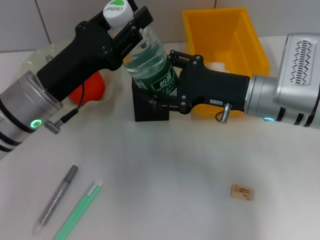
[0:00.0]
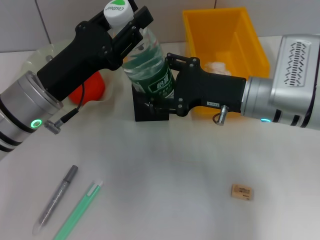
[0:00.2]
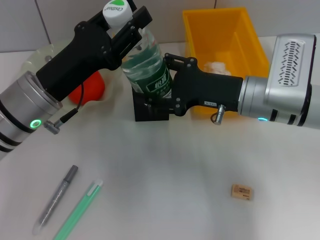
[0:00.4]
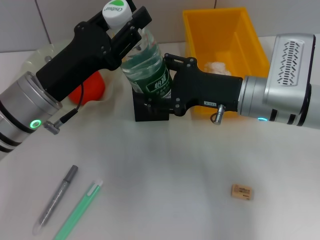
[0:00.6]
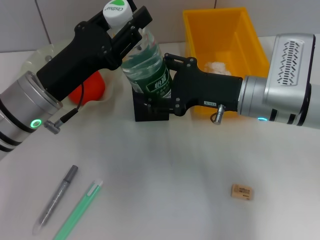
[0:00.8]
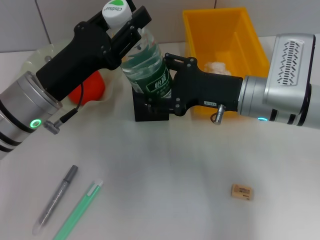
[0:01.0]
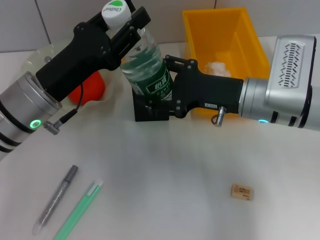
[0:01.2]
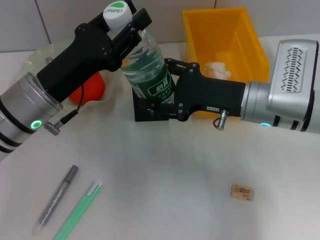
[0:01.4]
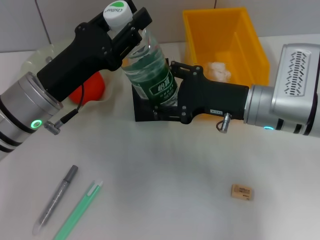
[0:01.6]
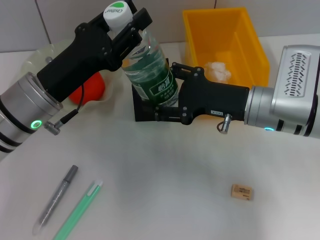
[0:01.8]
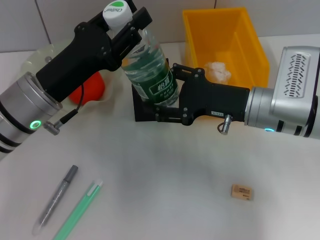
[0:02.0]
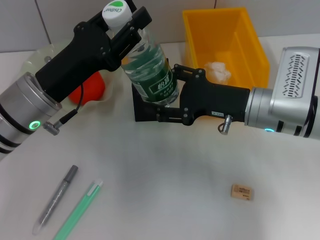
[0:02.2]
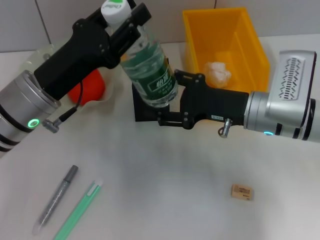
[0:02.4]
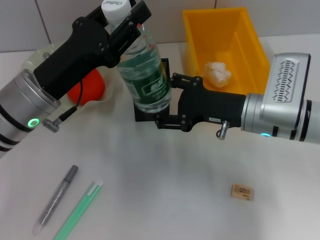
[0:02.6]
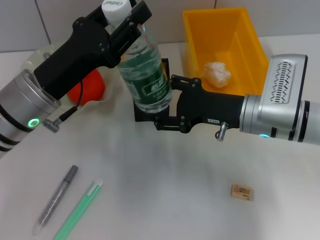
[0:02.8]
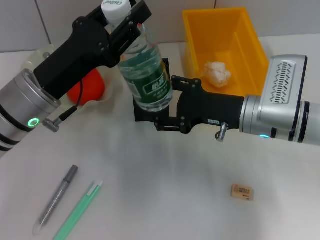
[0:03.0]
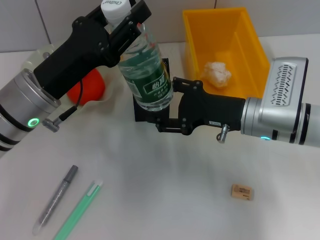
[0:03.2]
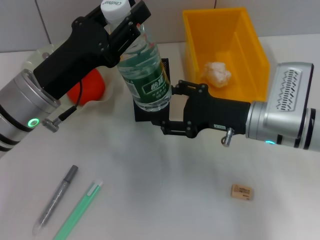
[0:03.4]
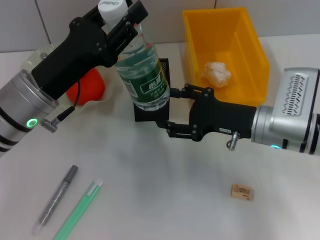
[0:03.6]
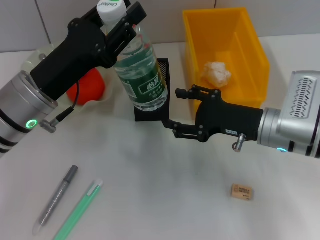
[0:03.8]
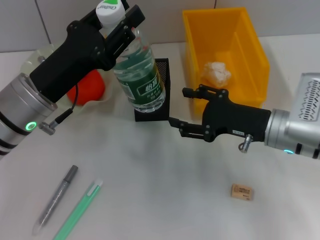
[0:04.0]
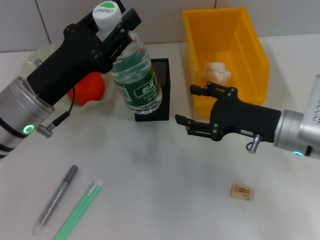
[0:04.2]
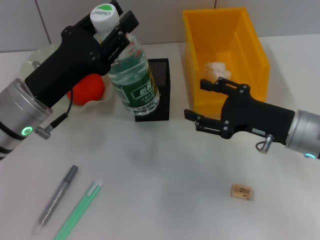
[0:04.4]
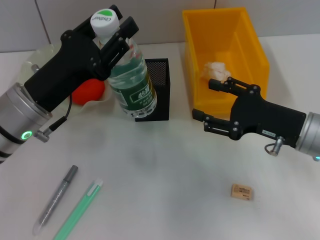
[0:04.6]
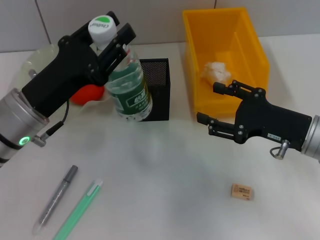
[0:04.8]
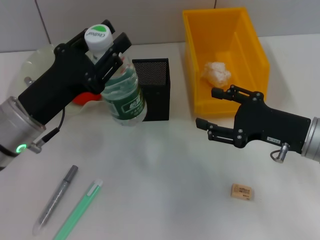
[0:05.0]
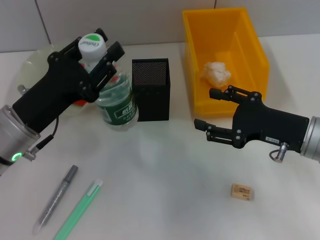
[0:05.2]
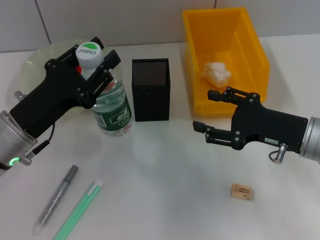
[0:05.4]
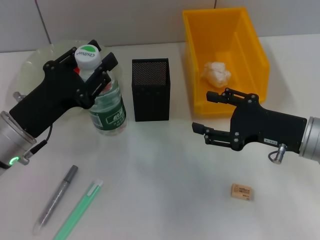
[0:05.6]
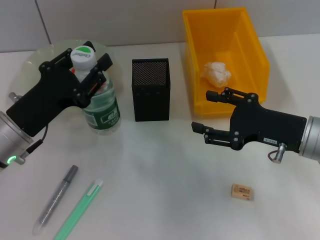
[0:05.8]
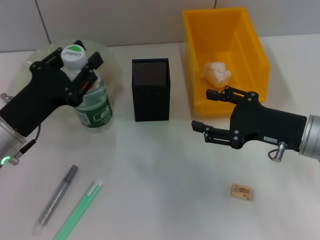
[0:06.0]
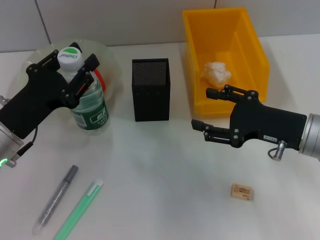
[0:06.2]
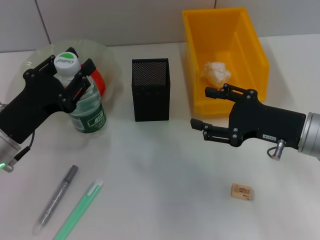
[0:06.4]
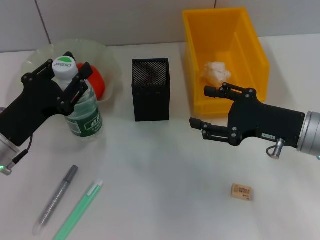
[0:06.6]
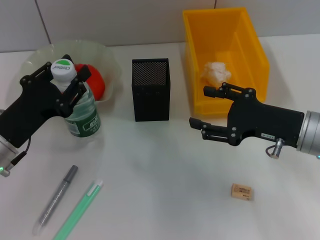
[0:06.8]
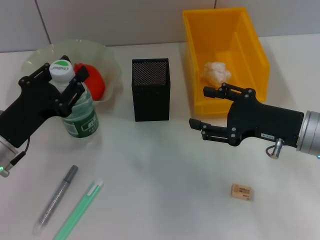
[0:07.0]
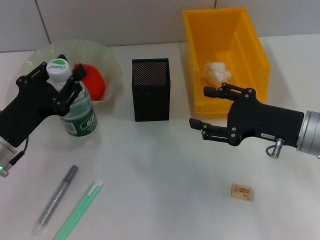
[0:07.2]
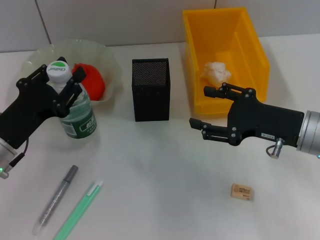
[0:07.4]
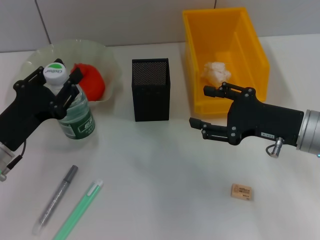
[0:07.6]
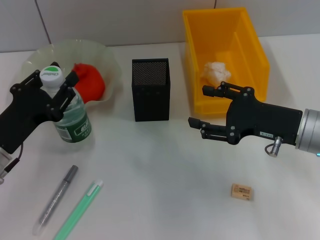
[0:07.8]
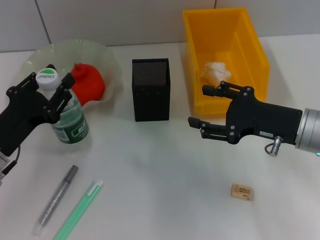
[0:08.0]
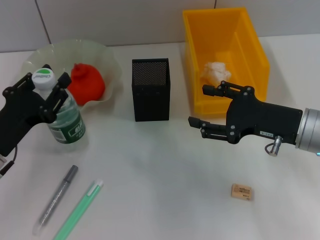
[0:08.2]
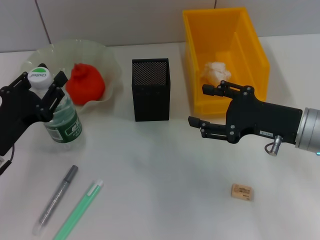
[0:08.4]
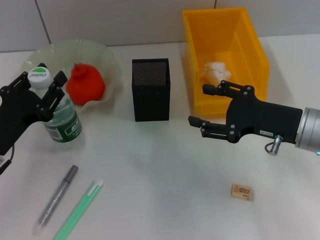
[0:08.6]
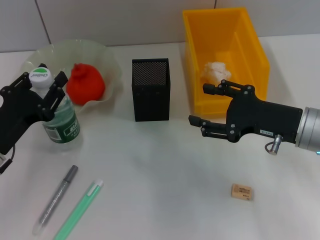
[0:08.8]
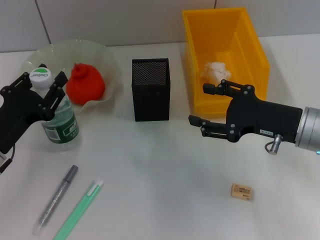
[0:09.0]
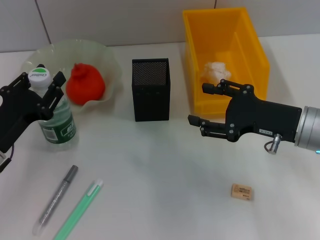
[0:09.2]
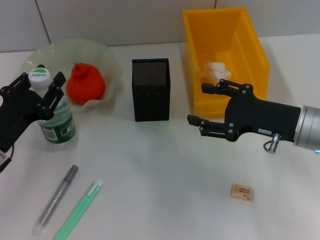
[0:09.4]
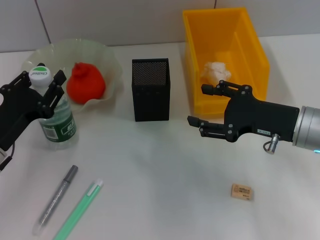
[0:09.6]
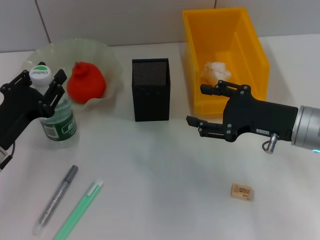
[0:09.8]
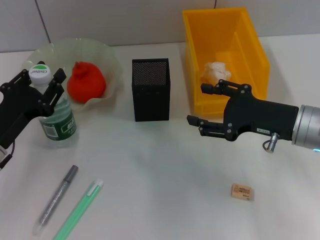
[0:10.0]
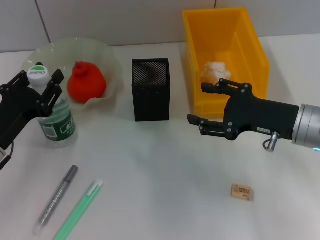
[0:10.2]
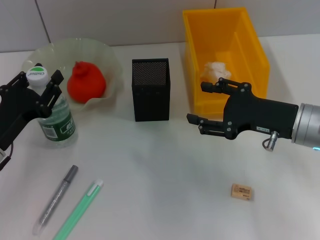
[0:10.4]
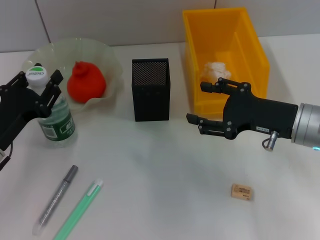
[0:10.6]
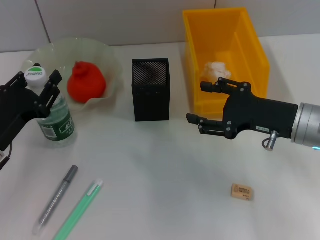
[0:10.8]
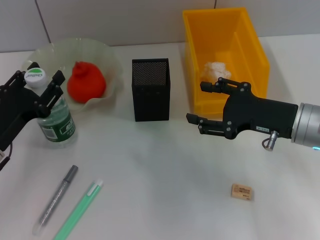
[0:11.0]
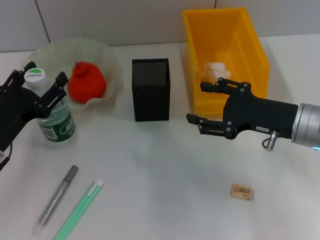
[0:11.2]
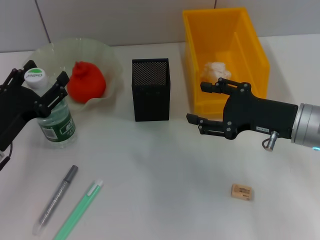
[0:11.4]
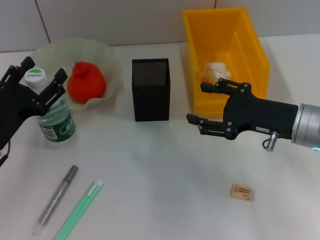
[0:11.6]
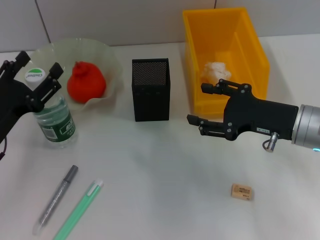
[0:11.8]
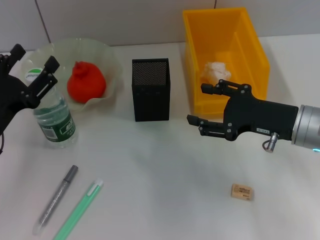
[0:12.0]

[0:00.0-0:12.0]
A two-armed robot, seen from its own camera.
Step, 0:00.0 to 0:03.2: Pass the water bottle from the right hand to the left hand.
Step, 0:03.4 to 0:11.8: Place the water bottle on the table with the left hand.
0:00.0 to 0:01.6: Both grippers stay about where they are.
0:01.6 to 0:03.0: The grippers move only a little.
0:03.0 to 0:04.4: The right gripper heads to the right, covering approximately 5 cm.
0:04.4 to 0:06.0: The left gripper changes place by about 5 cm.
0:06.0 to 0:09.0: There are only small adjustments of the grippers.
0:09.0 to 0:10.4: The two grippers keep their place.
0:10.4 to 0:12.0: The left gripper opens.

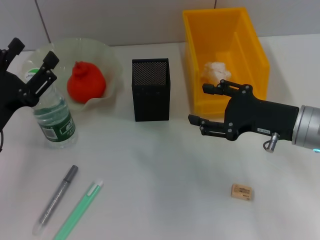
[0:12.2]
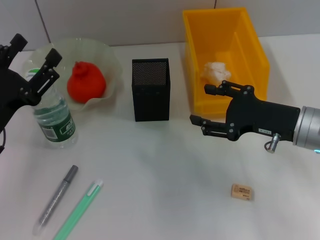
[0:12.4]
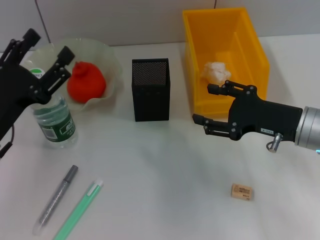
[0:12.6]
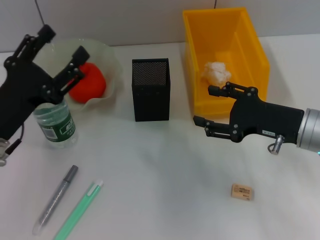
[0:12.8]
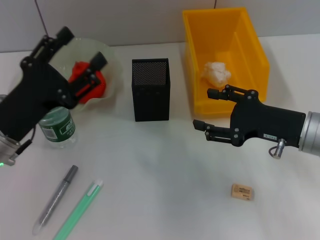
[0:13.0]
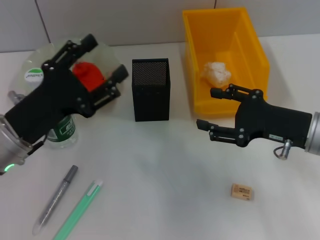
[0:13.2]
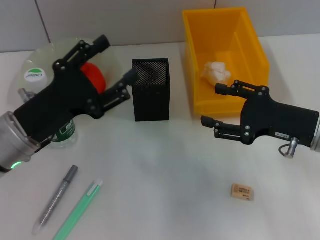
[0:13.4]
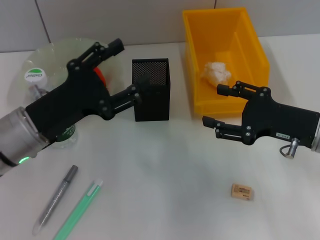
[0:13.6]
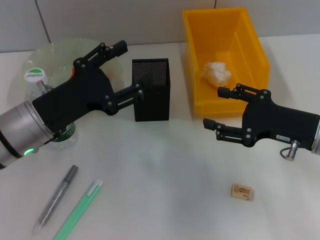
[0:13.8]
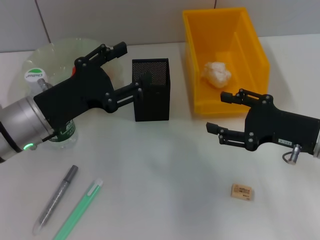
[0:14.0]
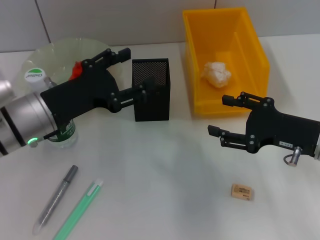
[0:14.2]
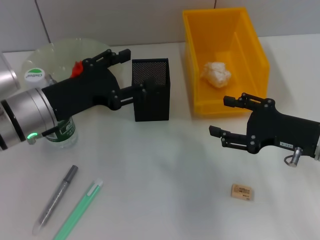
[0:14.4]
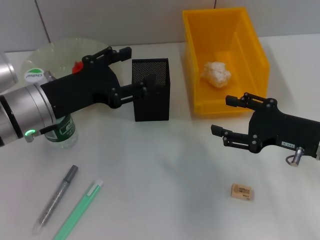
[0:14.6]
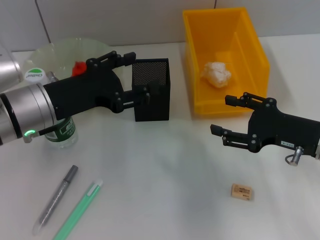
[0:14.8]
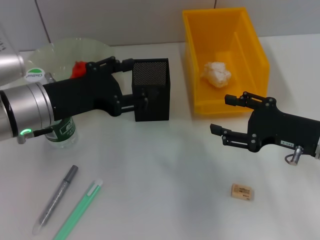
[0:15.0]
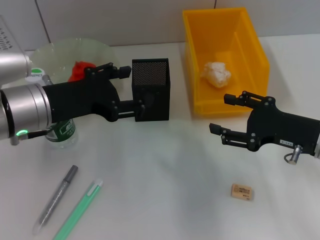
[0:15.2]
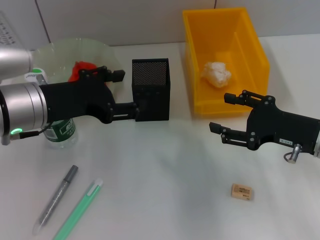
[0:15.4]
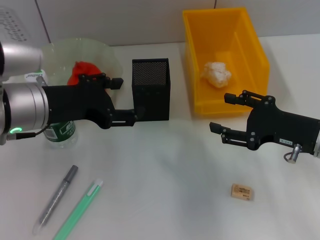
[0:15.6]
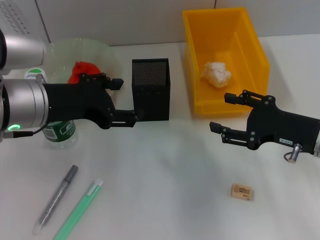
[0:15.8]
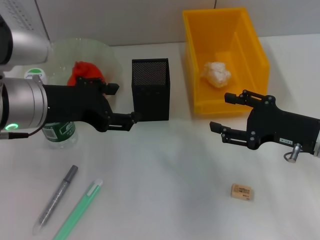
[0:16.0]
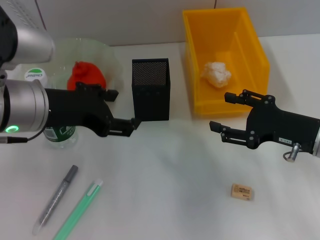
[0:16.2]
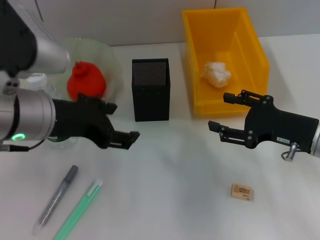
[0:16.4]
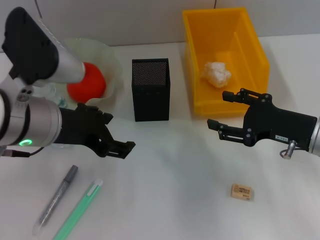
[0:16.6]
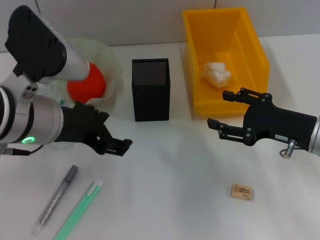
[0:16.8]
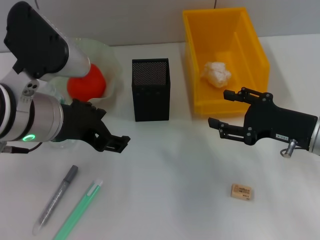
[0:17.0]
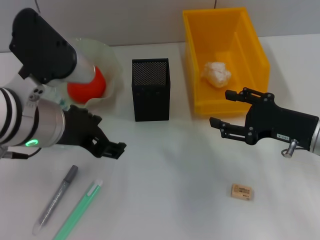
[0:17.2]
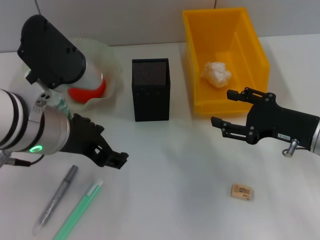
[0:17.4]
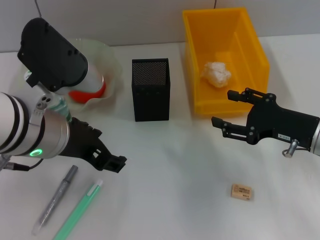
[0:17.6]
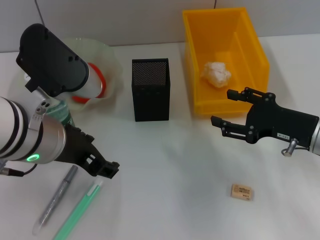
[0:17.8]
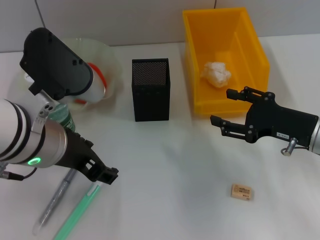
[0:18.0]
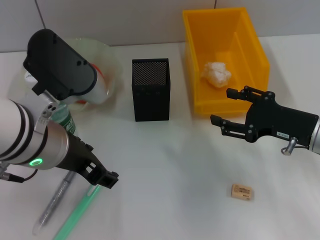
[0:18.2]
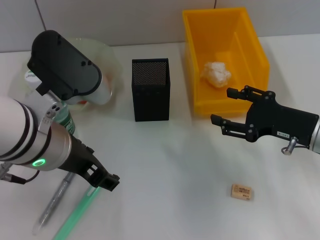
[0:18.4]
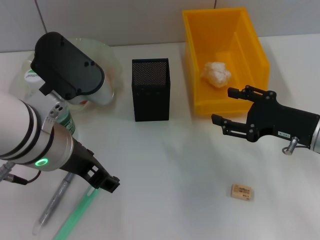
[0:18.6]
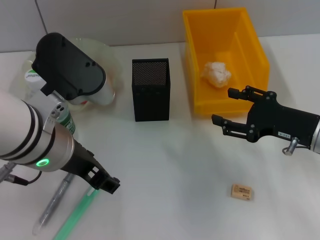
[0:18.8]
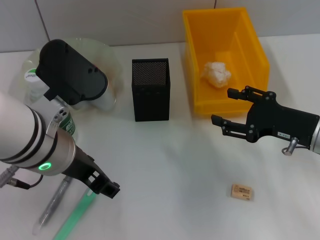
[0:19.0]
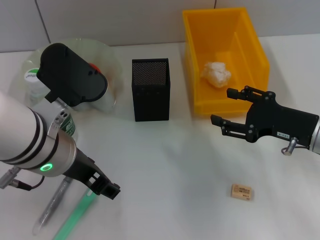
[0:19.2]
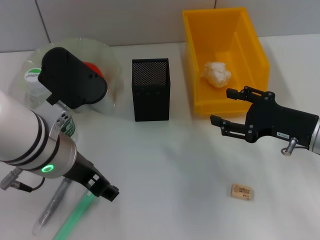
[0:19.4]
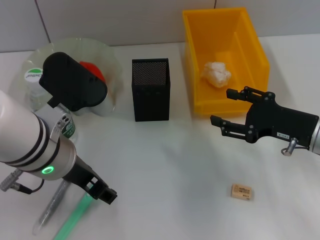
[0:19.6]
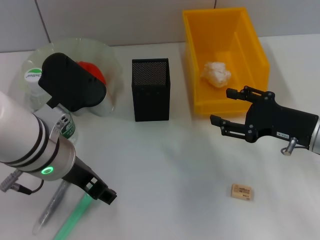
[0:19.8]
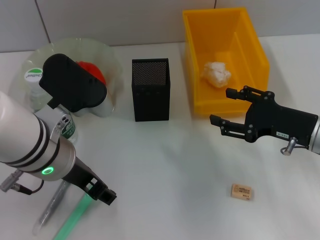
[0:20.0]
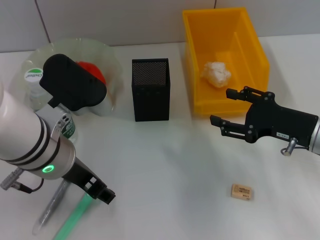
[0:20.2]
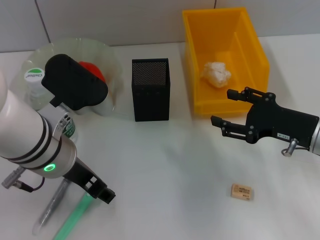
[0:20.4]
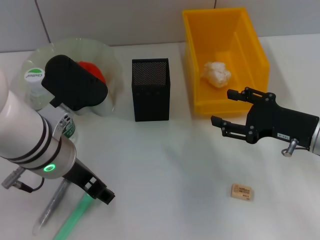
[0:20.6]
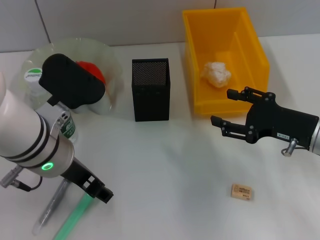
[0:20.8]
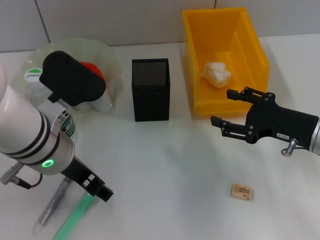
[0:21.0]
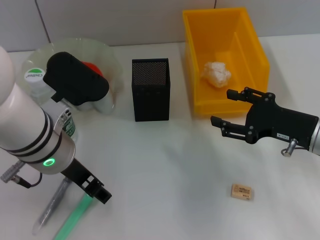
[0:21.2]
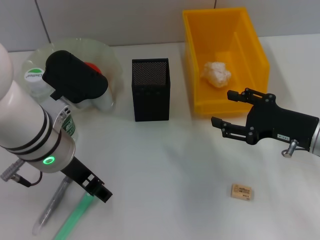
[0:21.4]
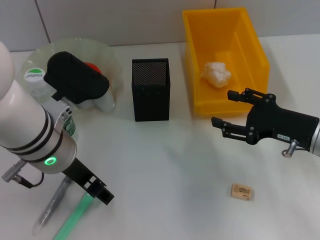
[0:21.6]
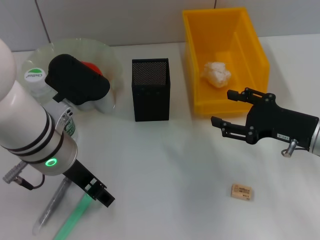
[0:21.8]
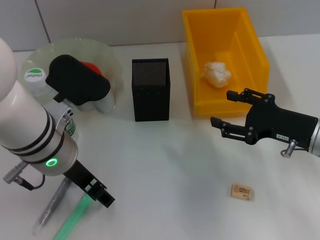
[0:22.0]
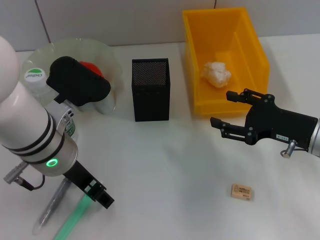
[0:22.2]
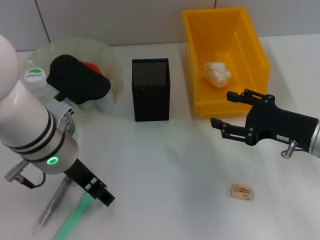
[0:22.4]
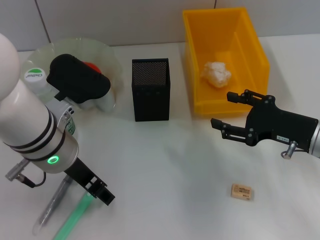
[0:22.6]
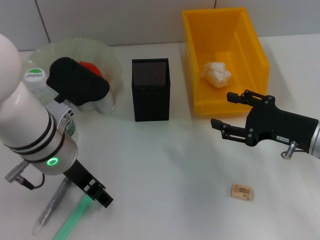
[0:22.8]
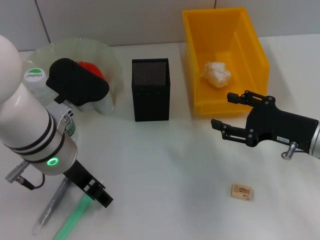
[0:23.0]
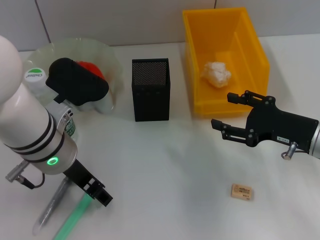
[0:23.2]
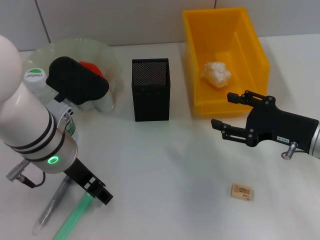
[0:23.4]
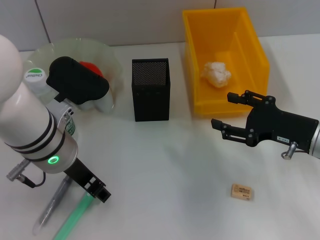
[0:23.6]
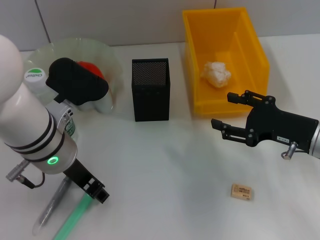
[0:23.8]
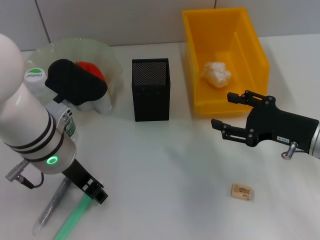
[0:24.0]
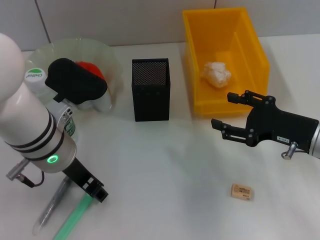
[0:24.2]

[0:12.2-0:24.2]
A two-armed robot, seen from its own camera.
0:12.2 to 0:13.8: The left gripper moves to the right, some 5 cm.
0:13.8 to 0:15.2: The left gripper changes place by some 5 cm.
0:16.6 to 0:18.2: The grippers stay close to where they were, moving slightly.
0:18.2 to 0:21.2: There are only small adjustments of the grippers.
0:21.2 to 0:22.6: Neither gripper changes place.
0:22.6 to 0:24.2: Both grippers stay about where they are.
